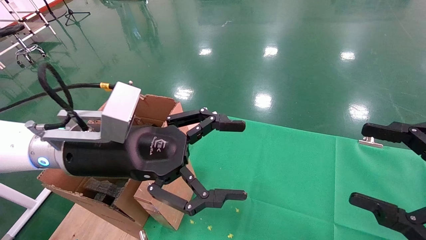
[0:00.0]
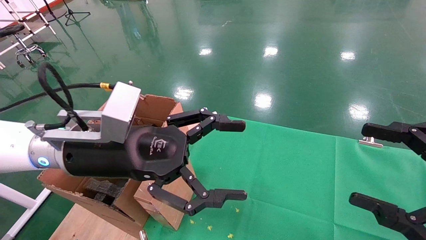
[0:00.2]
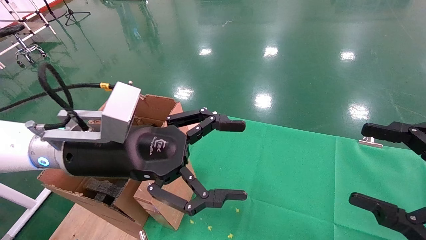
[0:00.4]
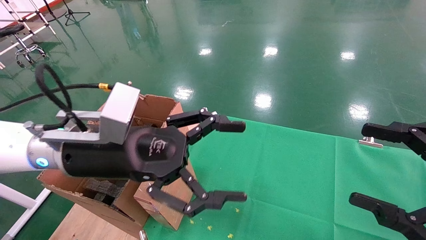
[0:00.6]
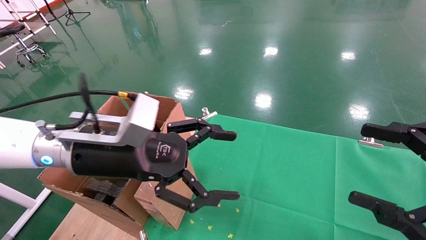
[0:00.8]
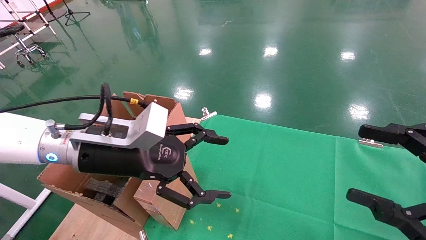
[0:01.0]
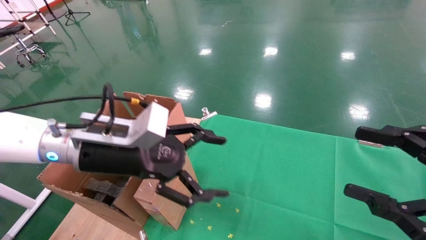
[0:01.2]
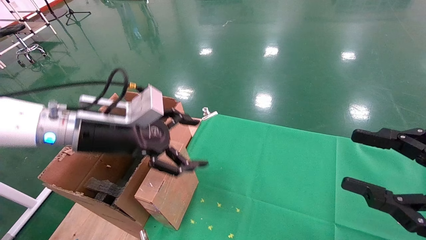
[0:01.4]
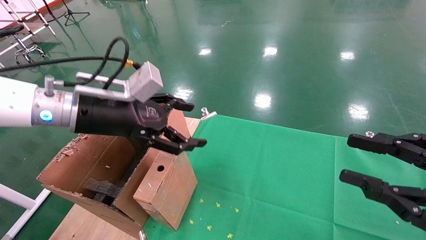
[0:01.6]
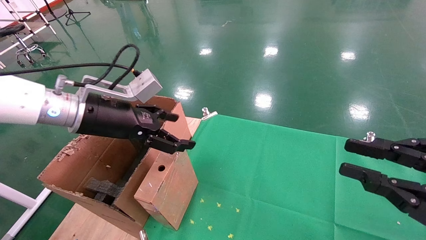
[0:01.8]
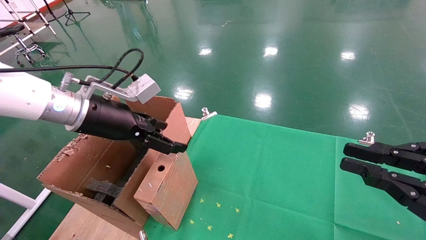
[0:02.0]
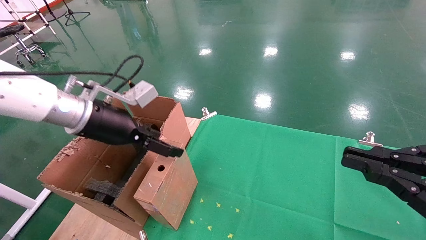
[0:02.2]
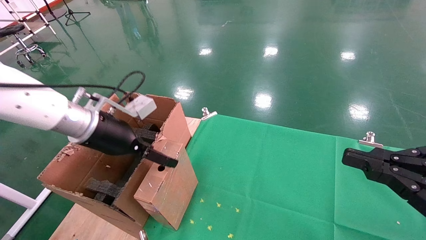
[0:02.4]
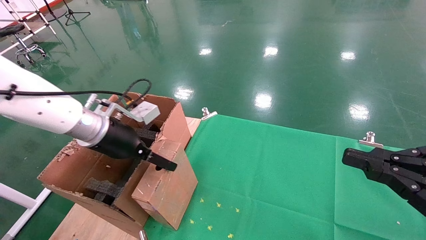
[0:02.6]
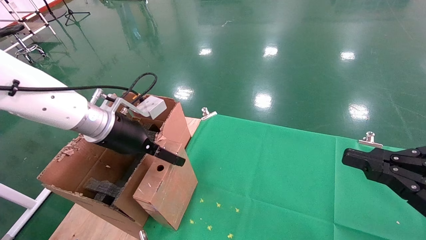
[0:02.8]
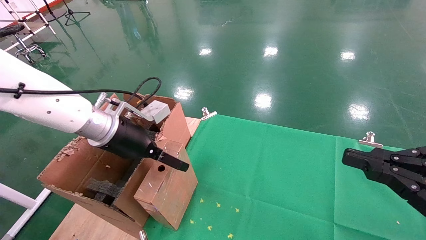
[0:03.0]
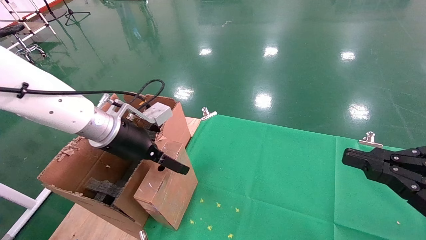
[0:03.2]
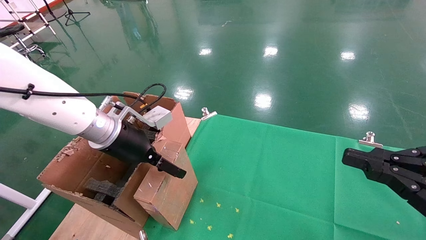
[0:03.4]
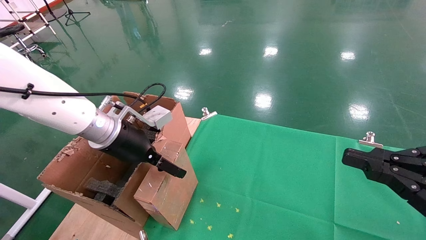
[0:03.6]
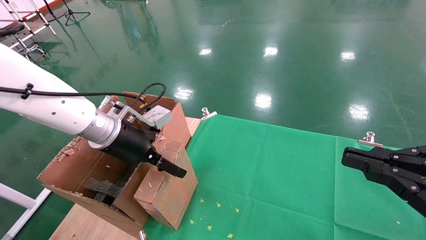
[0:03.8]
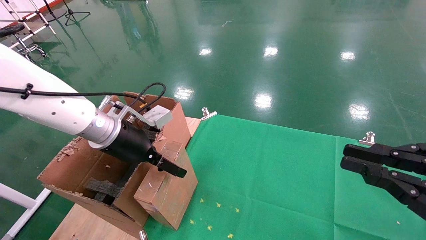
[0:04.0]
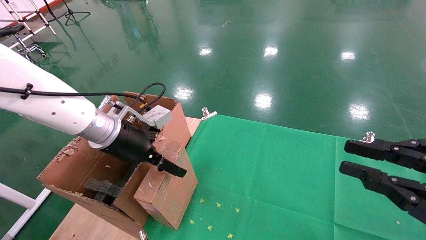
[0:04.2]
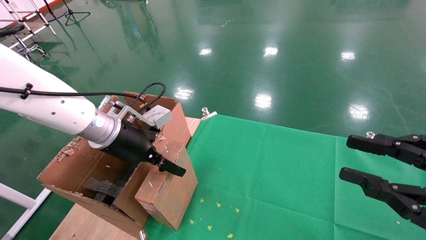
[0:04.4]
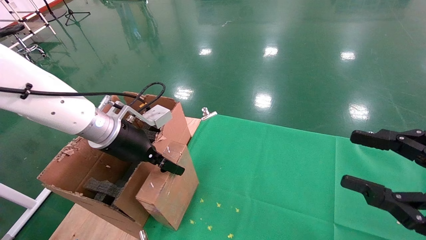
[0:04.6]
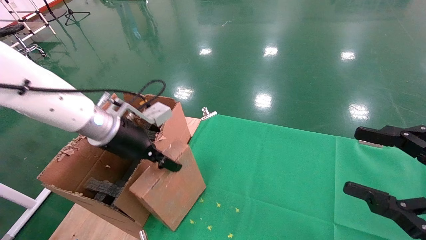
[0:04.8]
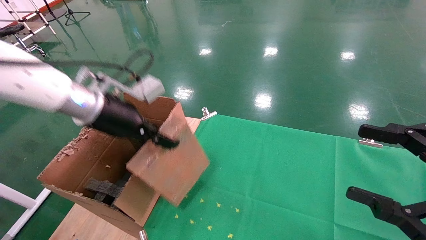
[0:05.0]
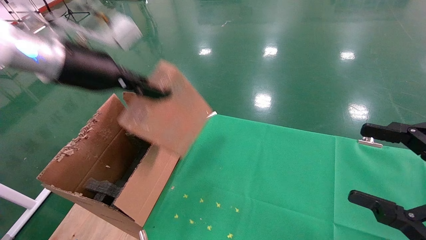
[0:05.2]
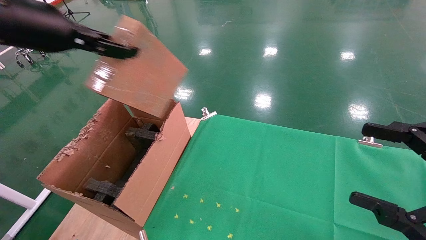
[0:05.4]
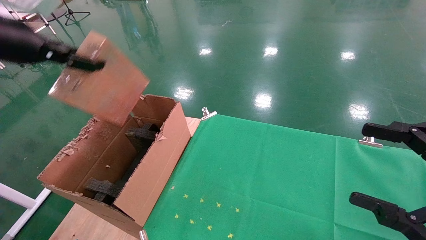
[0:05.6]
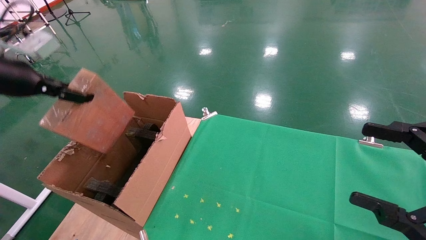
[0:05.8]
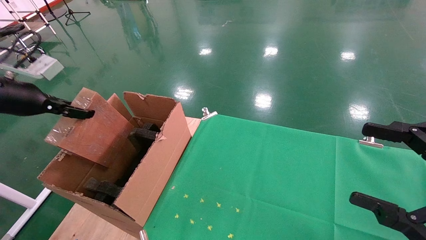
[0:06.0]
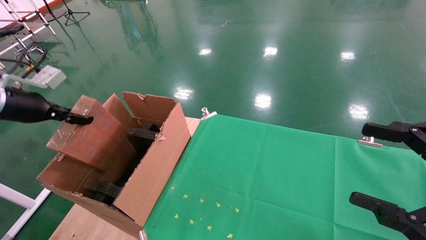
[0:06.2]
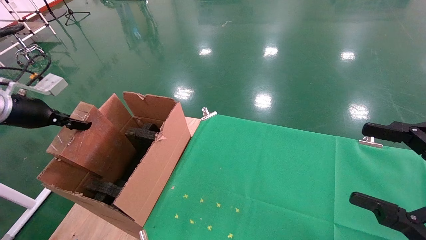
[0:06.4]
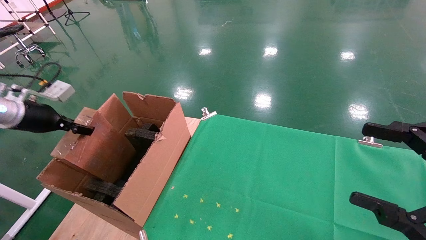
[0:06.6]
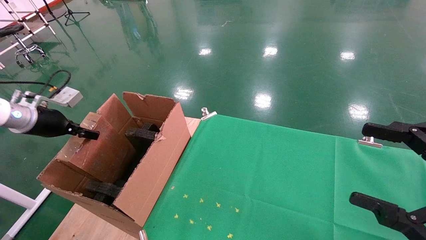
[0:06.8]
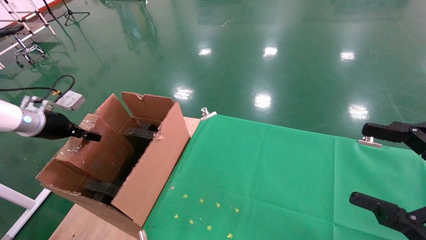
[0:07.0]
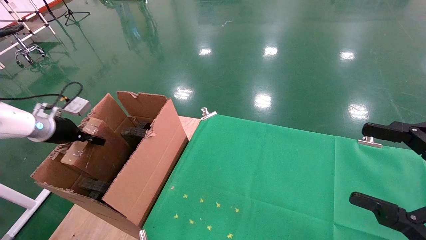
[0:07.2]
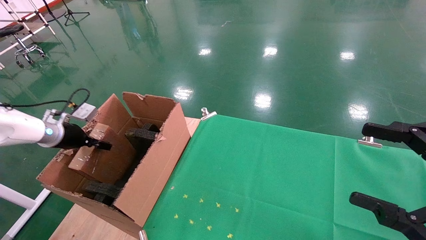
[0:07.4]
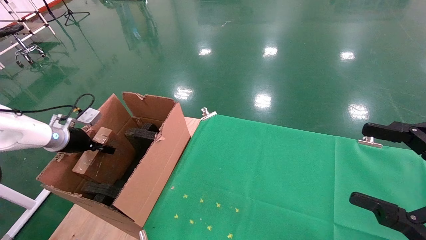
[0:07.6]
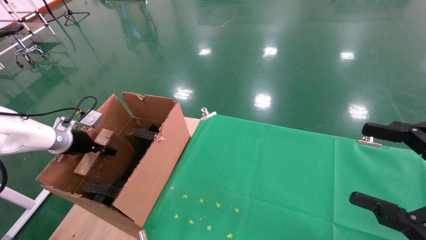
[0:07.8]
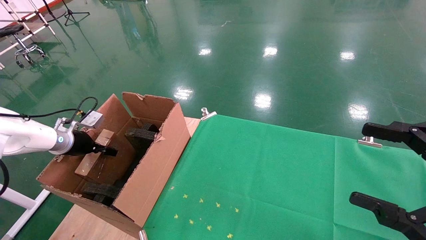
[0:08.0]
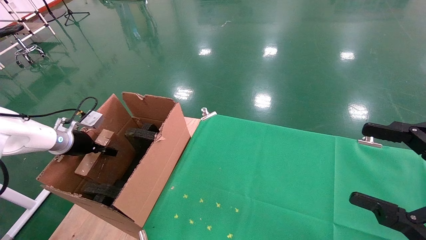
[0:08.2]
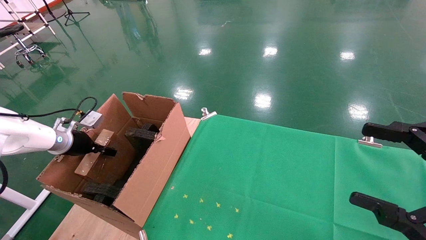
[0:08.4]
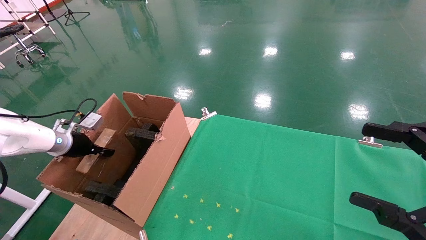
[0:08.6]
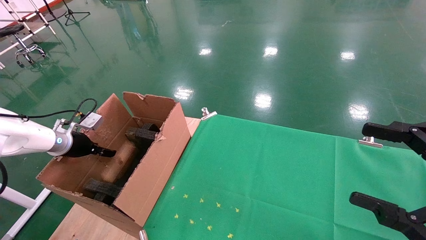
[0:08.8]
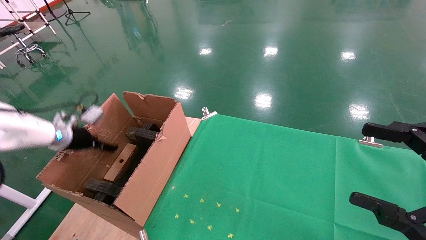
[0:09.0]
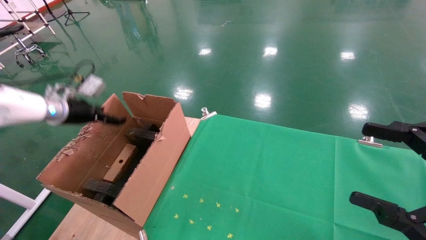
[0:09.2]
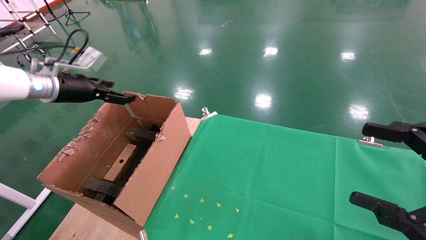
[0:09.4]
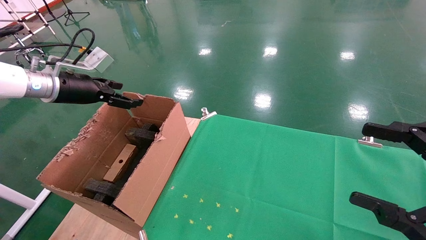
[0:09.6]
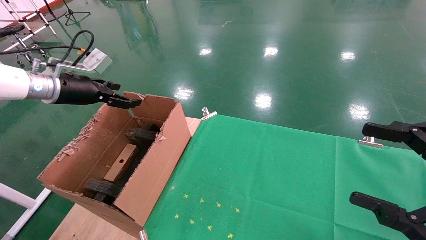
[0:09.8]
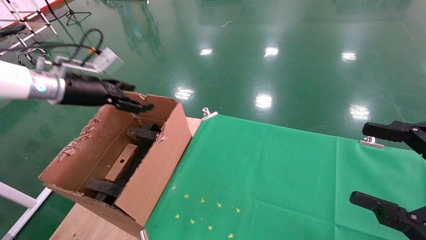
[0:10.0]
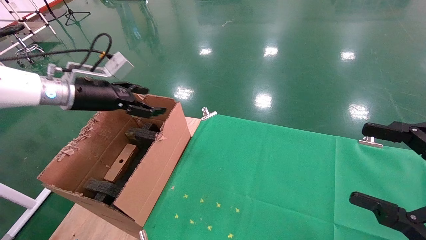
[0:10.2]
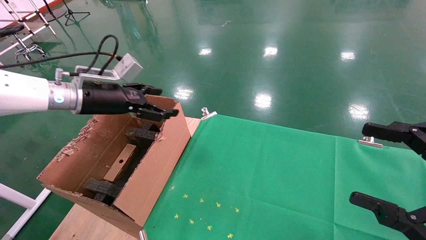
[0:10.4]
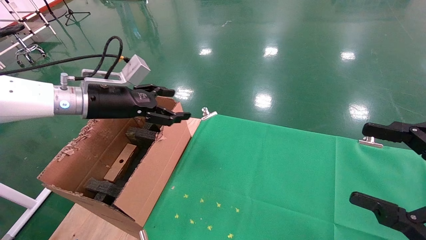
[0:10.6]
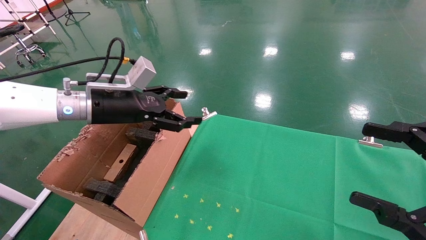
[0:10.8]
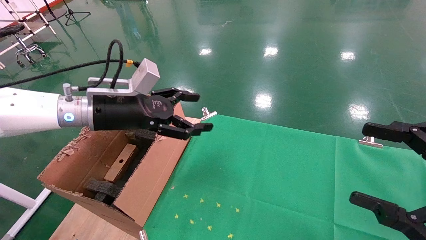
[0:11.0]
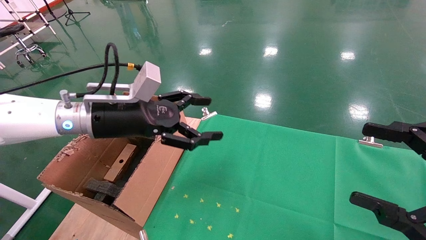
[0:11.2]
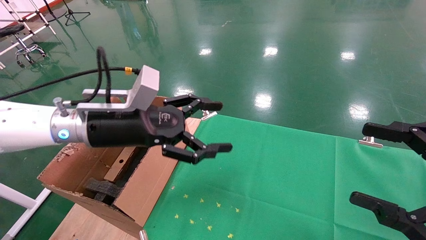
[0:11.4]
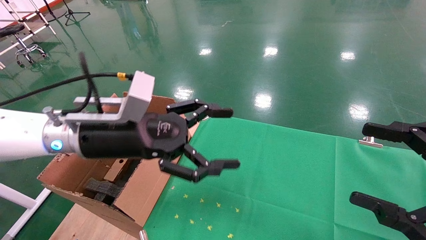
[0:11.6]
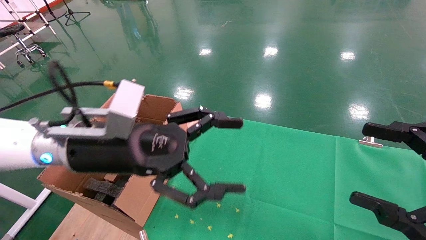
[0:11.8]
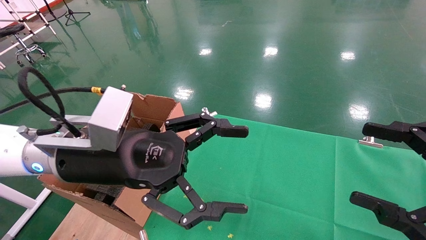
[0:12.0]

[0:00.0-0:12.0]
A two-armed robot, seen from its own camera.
Task of the whole recording: using a robotic arm to pick up a cardboard box and palace it the carton.
Step, 0:01.0 to 0:04.8: Pick up the mouse and the power cord paper box.
Step, 0:05.0 to 0:09.0: Place the mouse and the power cord paper box into the container.
0:00.0 to 0:01.6: The left gripper moves to the left and forward, about 5 cm. The right gripper closes up.
0:01.6 to 0:03.0: The left gripper moves some 5 cm; the right gripper closes up.
0:03.0 to 0:04.4: Both grippers stay about where they are.
0:04.4 to 0:06.0: The left gripper is displaced to the left by some 25 cm, and closes, while the right gripper opens its fingers.
0:06.0 to 0:07.6: The left gripper shifts some 20 cm downward and forward.
0:07.6 to 0:09.0: The left gripper opens.
0:09.0 to 0:10.4: The left gripper heads to the right and upward, covering roughly 15 cm, and opens its fingers.
0:10.4 to 0:12.0: The left gripper is displaced to the right and backward by approximately 20 cm.

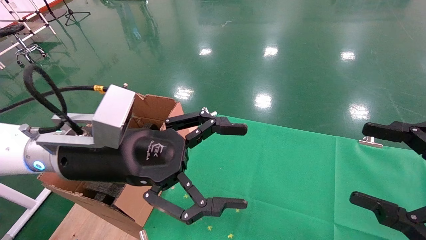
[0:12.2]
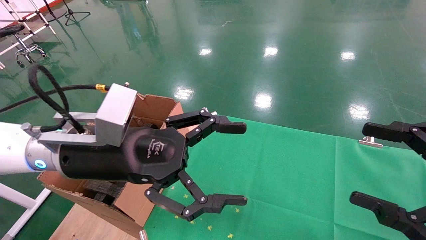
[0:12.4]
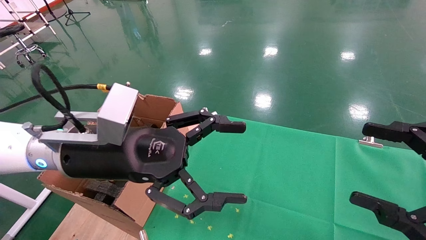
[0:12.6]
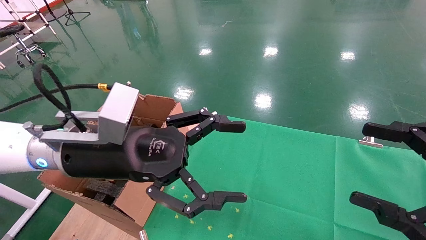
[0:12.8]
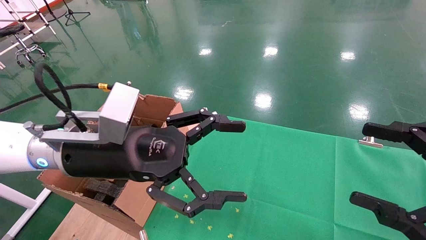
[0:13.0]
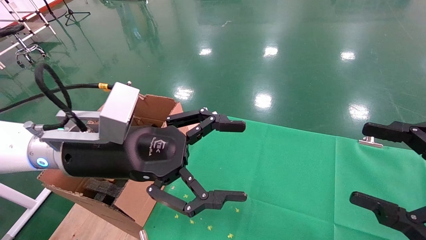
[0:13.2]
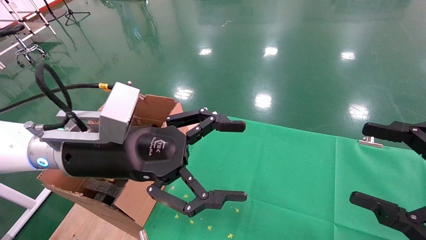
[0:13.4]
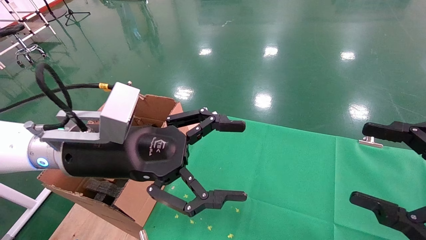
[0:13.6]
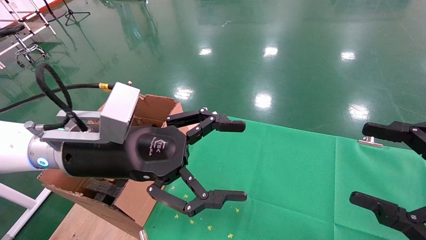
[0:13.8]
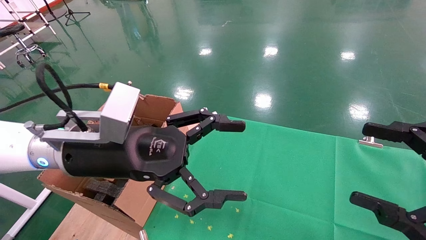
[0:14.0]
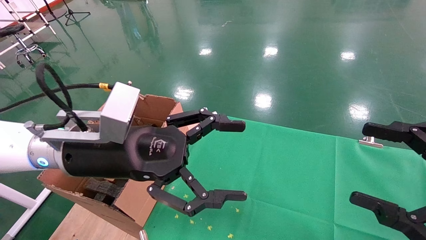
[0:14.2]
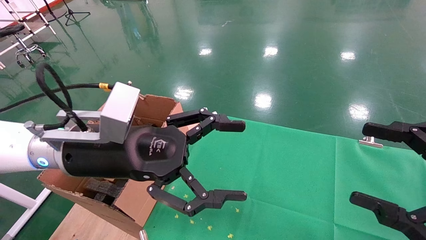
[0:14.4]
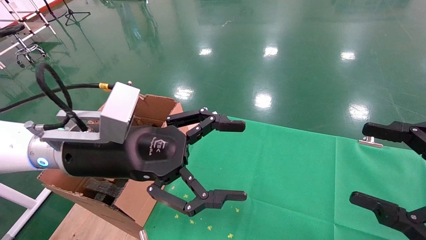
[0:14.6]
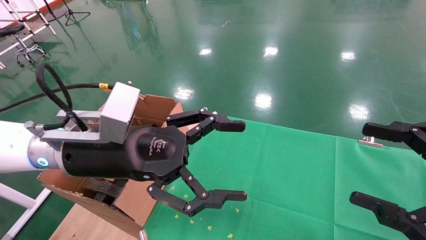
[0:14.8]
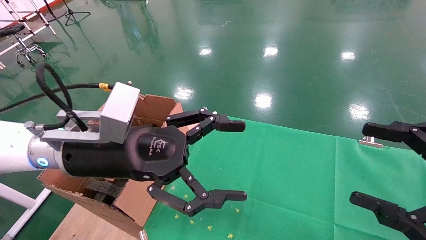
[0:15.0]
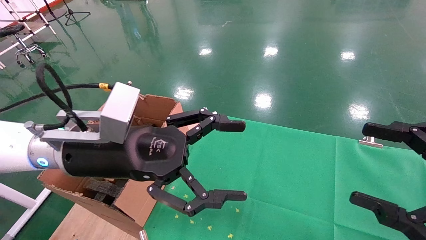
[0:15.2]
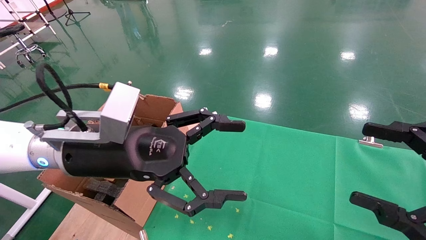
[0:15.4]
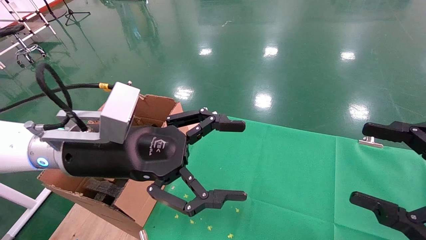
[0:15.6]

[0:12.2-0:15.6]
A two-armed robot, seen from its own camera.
Task of the whole recording: using a robotic arm to pick up a cardboard box and palace it the carton.
0:12.2 to 0:15.6: Both grippers stay about where they are.

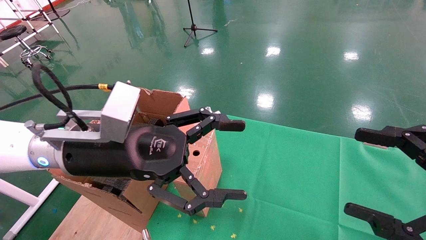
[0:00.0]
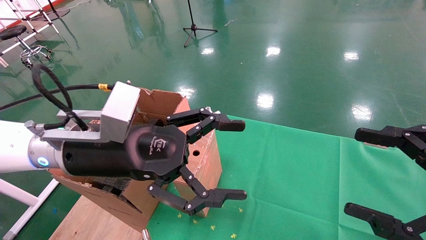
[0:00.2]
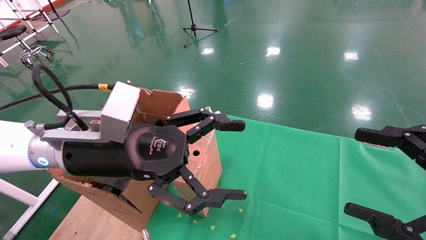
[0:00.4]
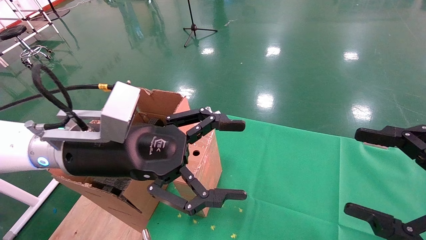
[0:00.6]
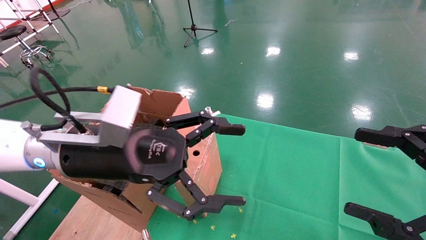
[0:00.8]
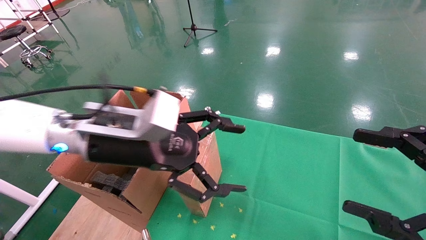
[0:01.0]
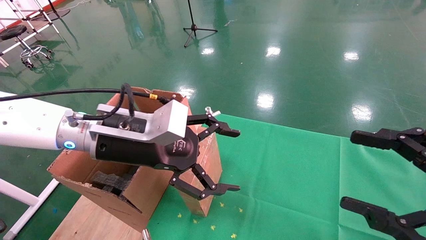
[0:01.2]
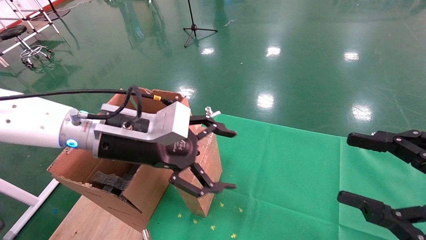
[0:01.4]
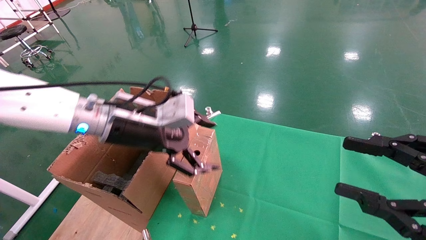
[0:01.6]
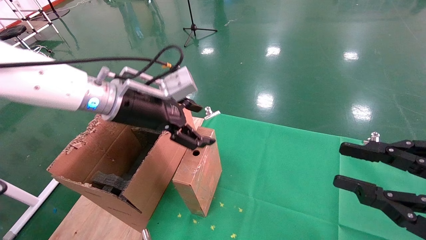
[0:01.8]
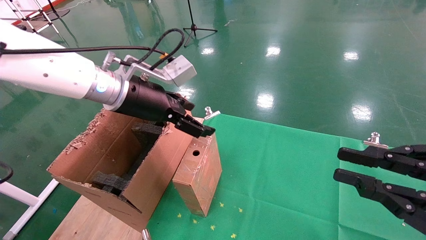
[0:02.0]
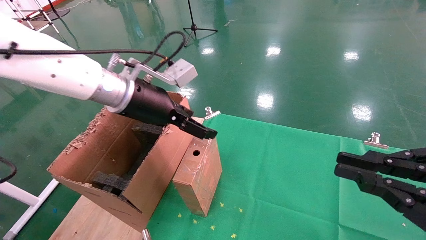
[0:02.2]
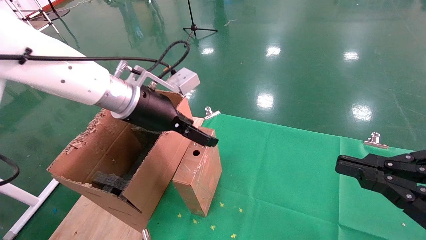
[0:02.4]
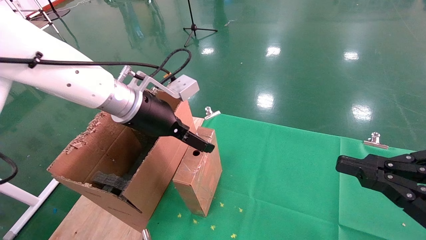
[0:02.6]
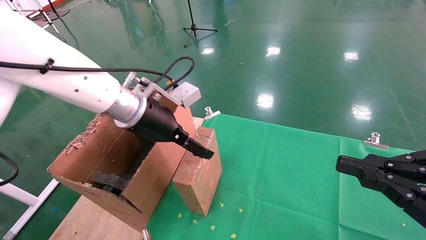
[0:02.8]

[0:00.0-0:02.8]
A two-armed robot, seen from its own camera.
Task of the whole recording: using a robotic arm to pick up a cardboard box and palace it the carton.
0:01.4 to 0:02.8: The right gripper closes up. The left gripper travels forward by about 5 cm.
